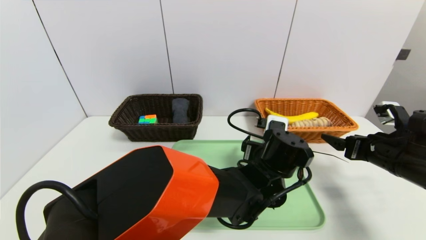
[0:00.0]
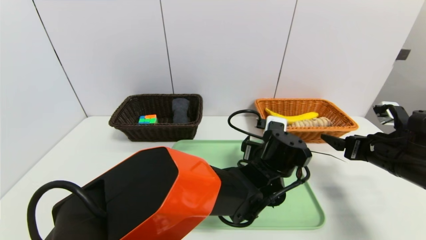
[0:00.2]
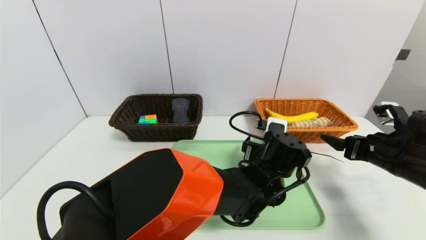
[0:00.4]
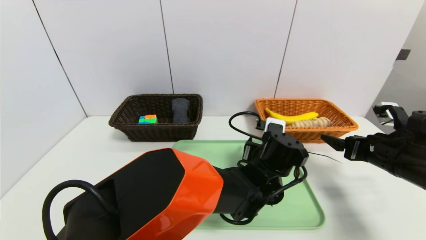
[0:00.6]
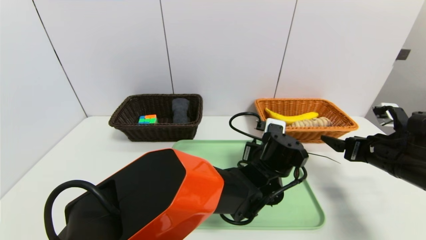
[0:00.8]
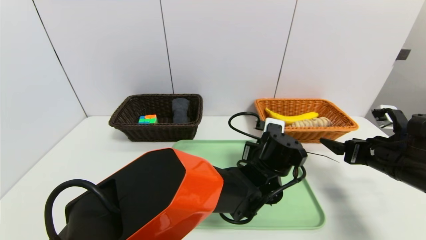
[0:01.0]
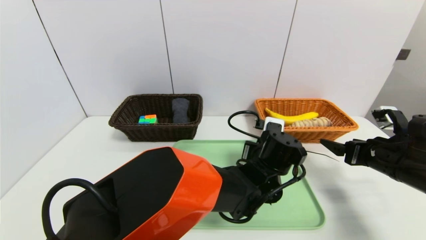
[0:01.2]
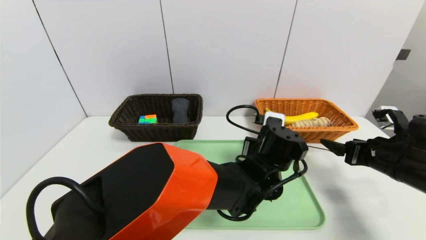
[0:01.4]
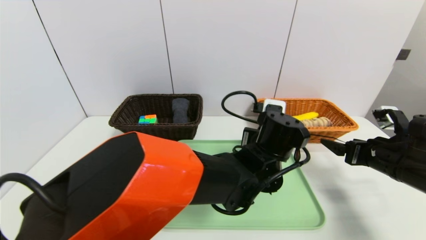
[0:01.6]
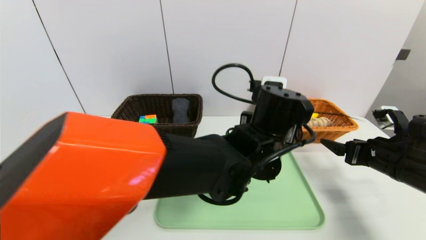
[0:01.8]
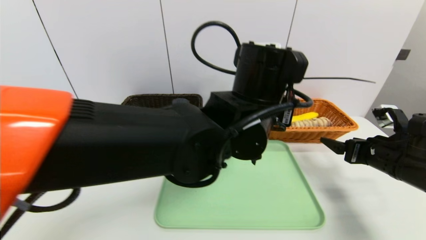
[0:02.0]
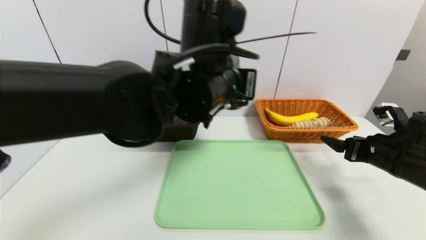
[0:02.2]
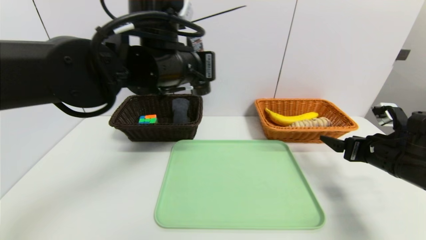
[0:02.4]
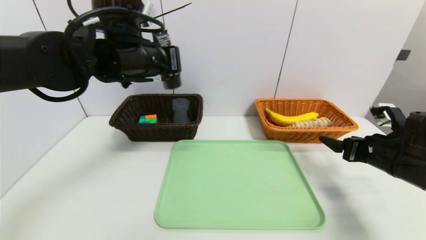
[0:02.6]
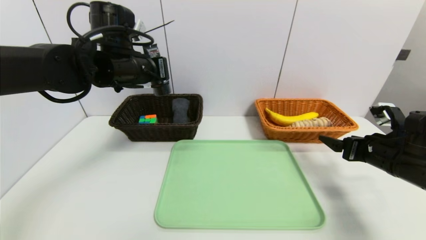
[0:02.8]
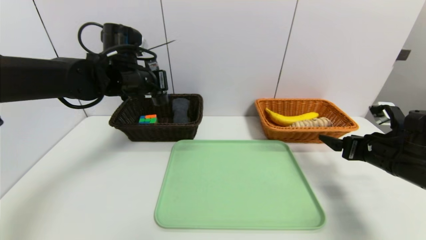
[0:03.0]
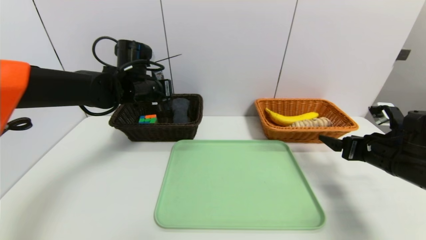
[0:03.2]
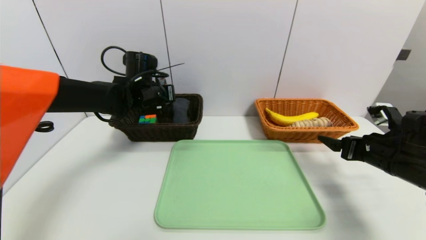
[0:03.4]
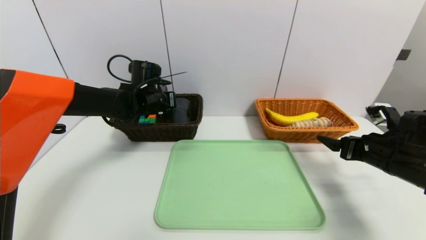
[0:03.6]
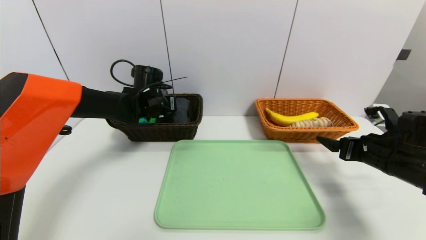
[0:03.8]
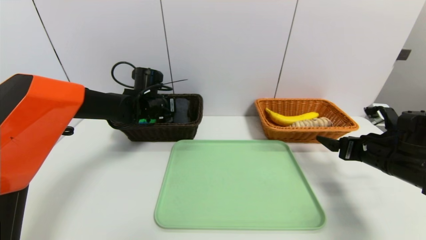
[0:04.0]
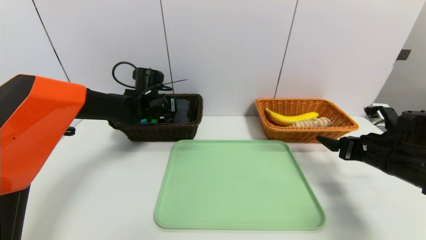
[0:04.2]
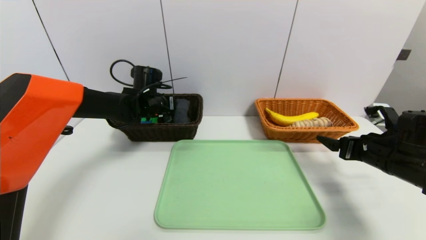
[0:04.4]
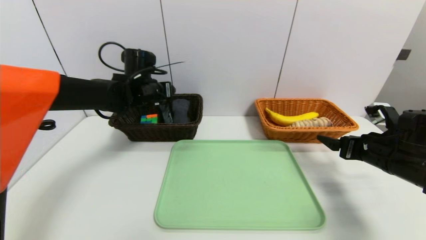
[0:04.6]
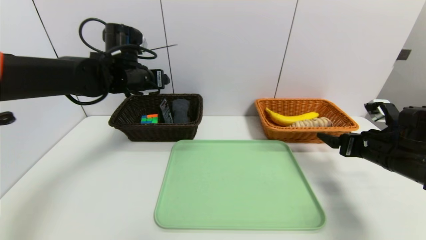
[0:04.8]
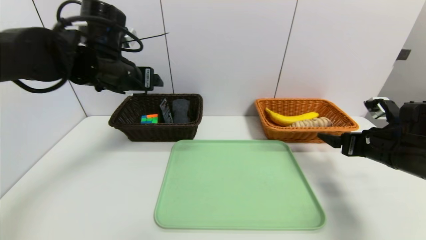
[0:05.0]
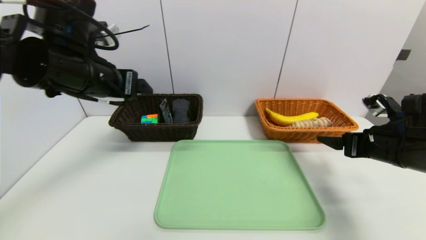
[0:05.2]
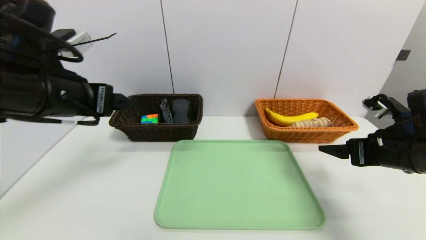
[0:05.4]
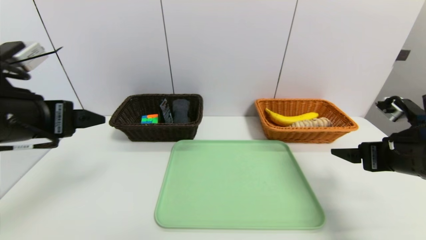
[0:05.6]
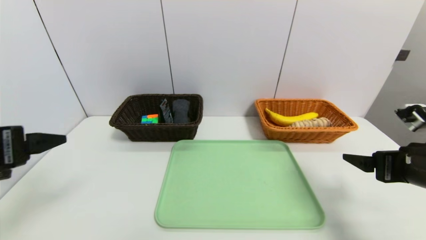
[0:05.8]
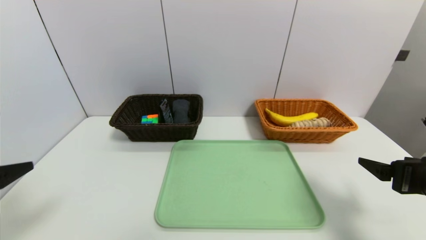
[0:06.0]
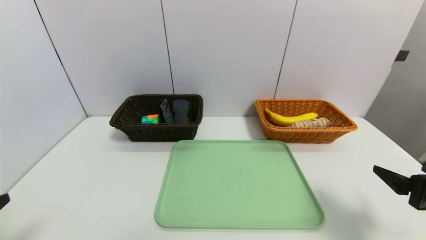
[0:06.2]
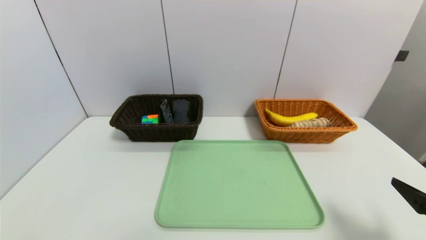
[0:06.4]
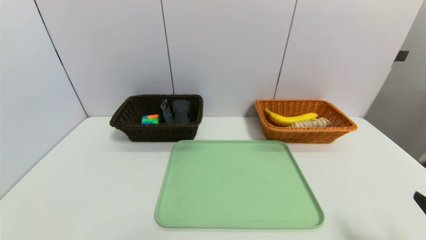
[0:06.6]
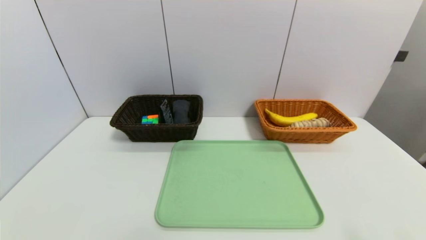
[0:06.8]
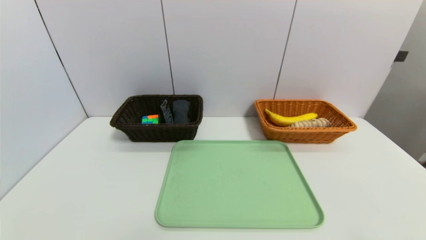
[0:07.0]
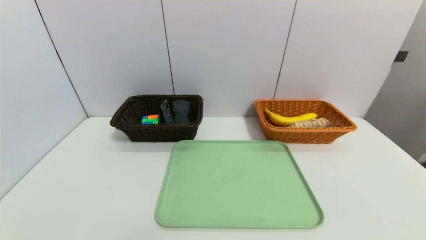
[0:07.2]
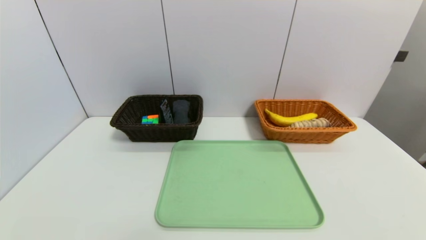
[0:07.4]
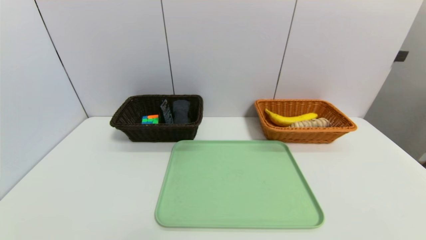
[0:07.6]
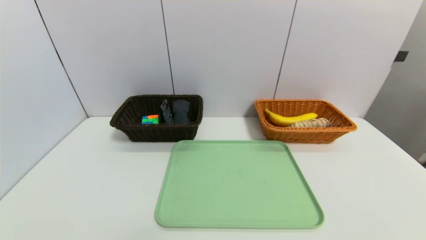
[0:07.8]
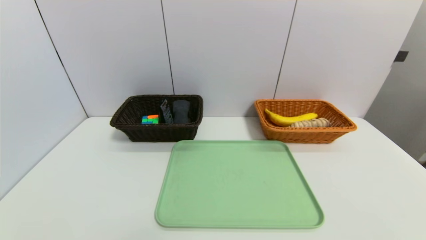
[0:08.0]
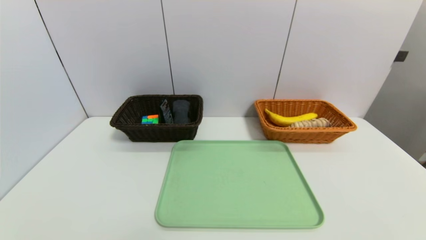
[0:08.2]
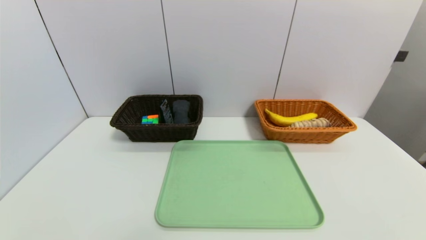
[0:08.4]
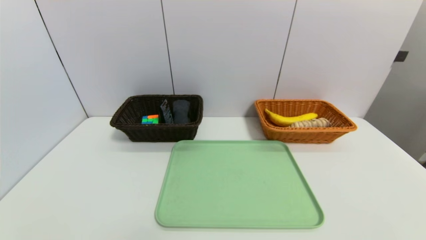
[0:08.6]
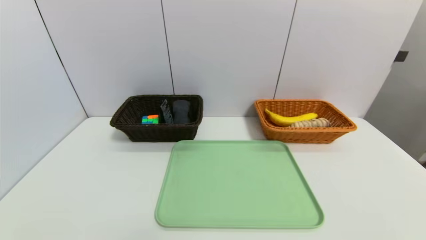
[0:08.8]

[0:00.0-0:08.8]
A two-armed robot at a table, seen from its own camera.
Task of the whole recording: place the food in the right basket with the right gripper, and place the non food items in the left basket with the left gripper.
Step, 0.0 to 4.6 s: Grasp the soft cleanser and put it in the left basket.
0.0 to 1.4 s: The left gripper closes its fingers.
1.4 to 3.0 s: The left gripper shifts about 30 cm to the left and upward.
3.0 to 4.4 s: The left gripper is displaced downward and forward by some 10 cm, and opens its fingers.
4.4 to 5.8 s: The right gripper heads backward and upward, covering about 10 cm. Meanwhile the left gripper goes some 30 cm backward.
5.8 to 7.4 s: The left gripper is displaced downward and backward by roughly 25 cm. Meanwhile the right gripper moves backward and downward, approximately 20 cm.

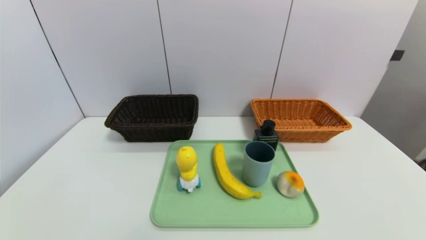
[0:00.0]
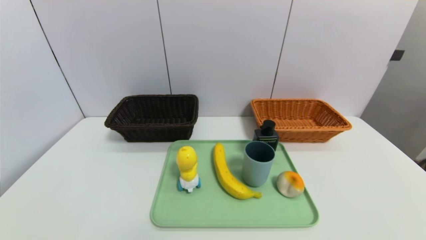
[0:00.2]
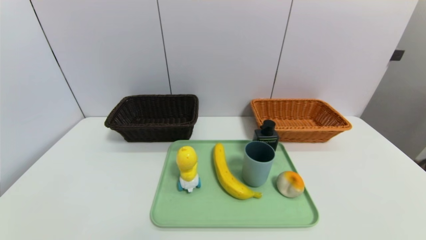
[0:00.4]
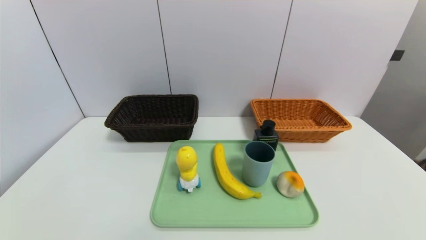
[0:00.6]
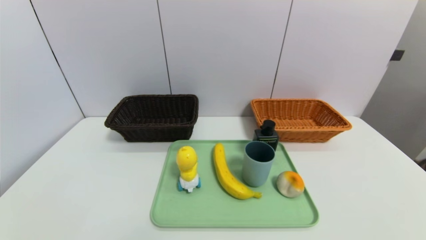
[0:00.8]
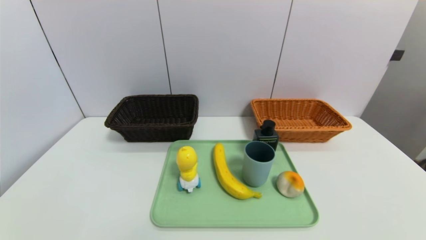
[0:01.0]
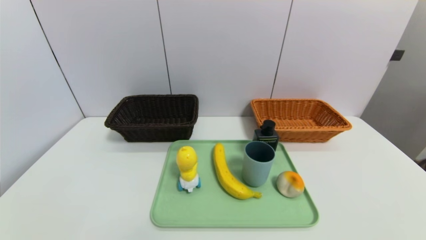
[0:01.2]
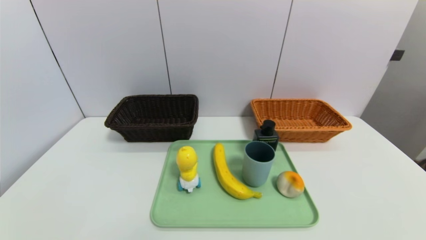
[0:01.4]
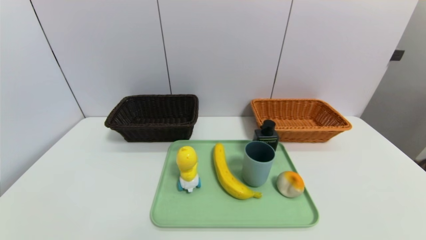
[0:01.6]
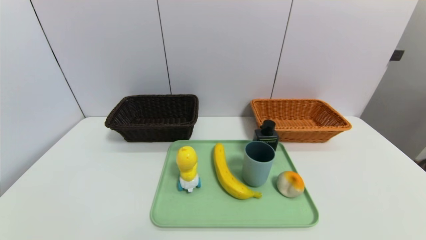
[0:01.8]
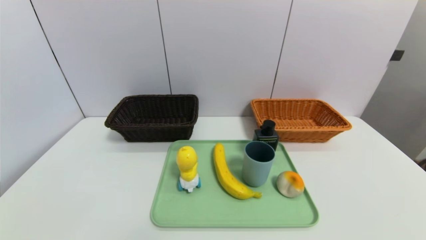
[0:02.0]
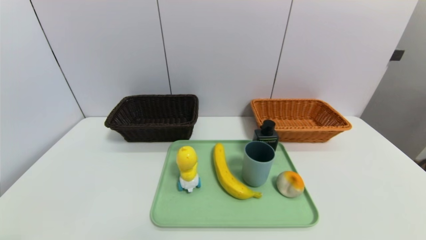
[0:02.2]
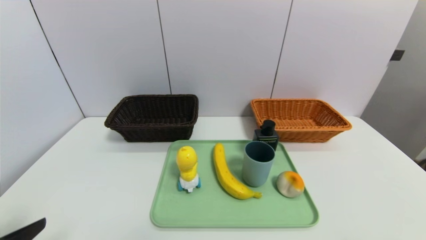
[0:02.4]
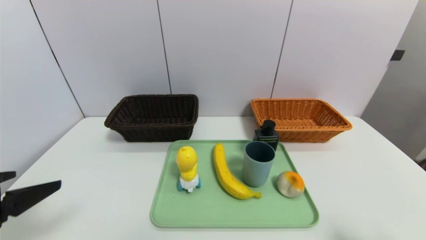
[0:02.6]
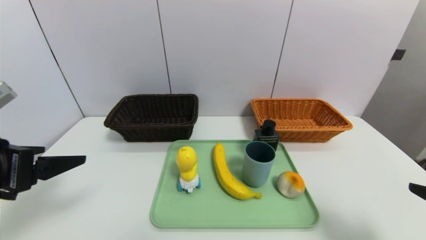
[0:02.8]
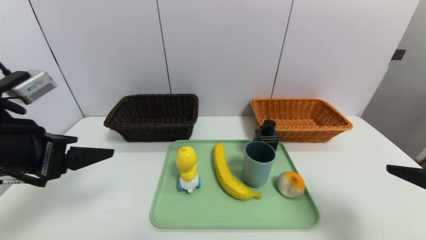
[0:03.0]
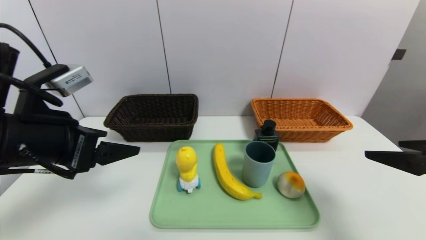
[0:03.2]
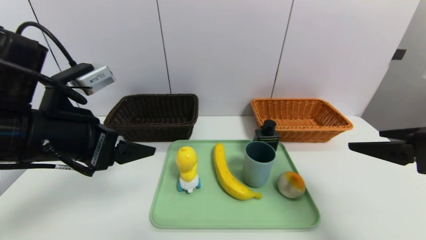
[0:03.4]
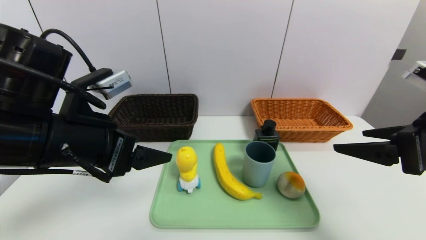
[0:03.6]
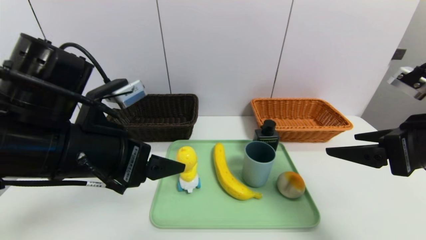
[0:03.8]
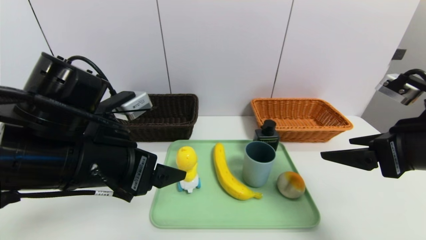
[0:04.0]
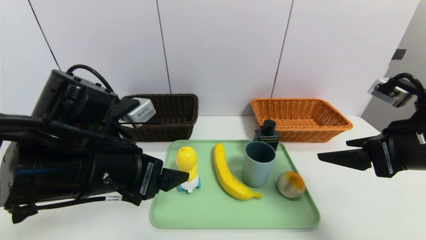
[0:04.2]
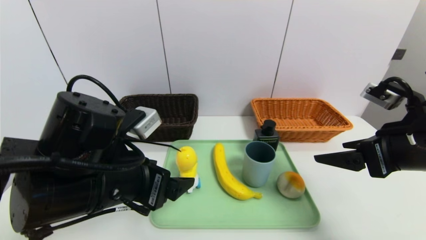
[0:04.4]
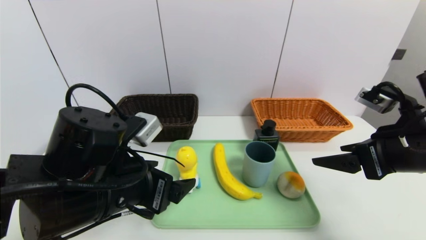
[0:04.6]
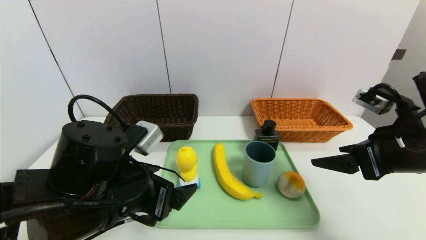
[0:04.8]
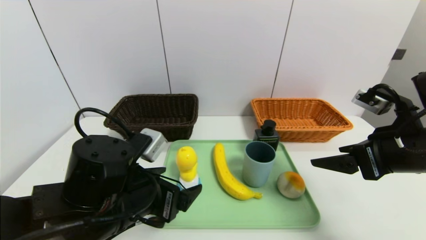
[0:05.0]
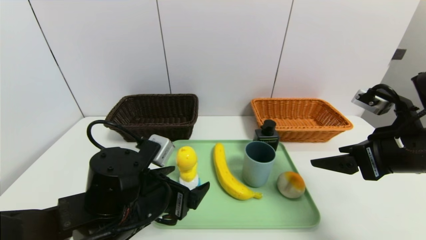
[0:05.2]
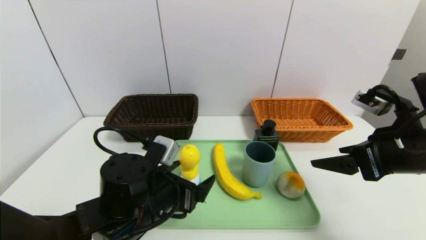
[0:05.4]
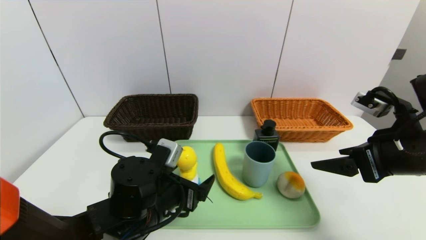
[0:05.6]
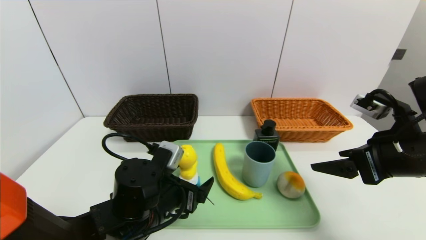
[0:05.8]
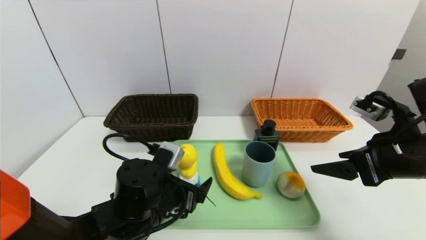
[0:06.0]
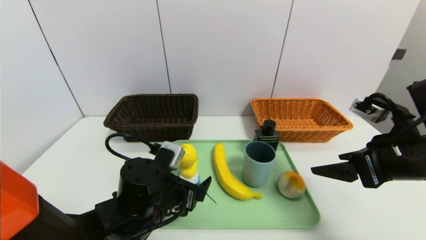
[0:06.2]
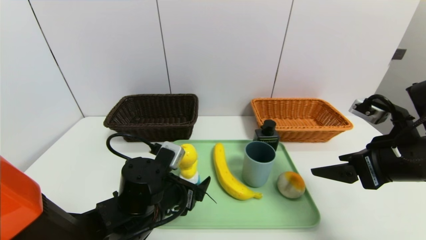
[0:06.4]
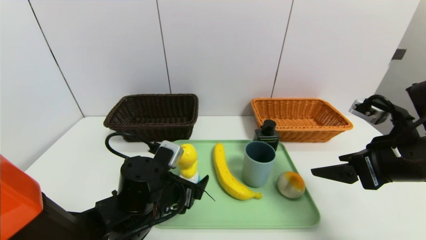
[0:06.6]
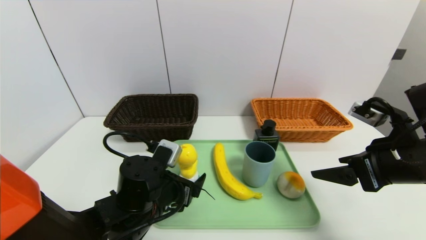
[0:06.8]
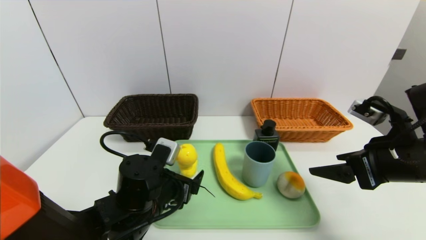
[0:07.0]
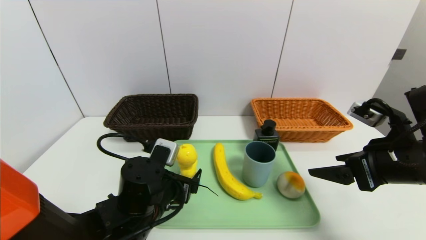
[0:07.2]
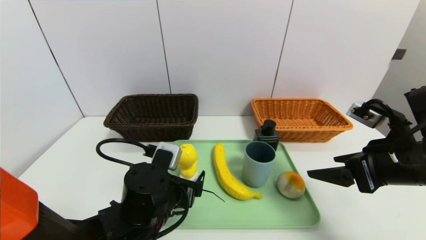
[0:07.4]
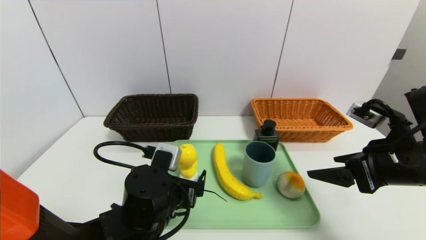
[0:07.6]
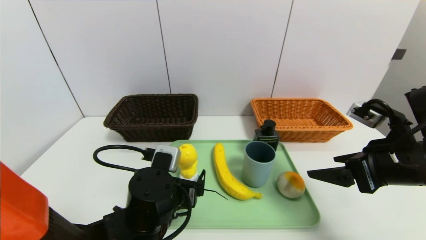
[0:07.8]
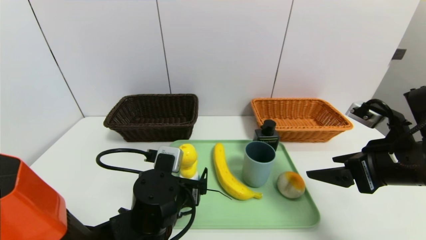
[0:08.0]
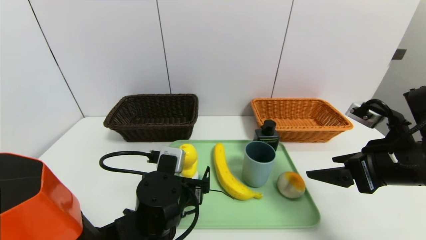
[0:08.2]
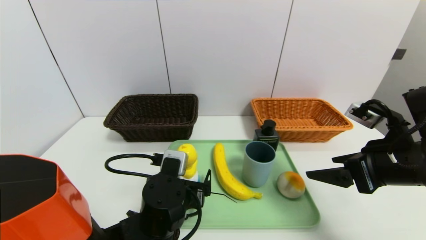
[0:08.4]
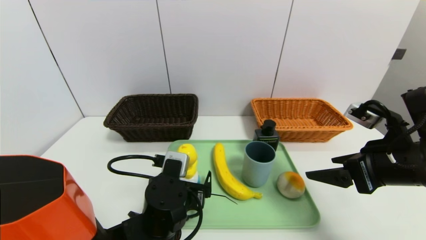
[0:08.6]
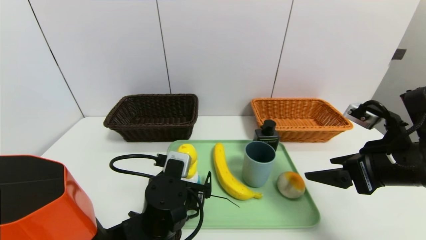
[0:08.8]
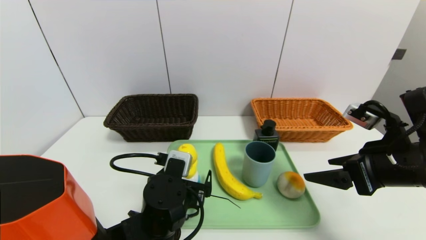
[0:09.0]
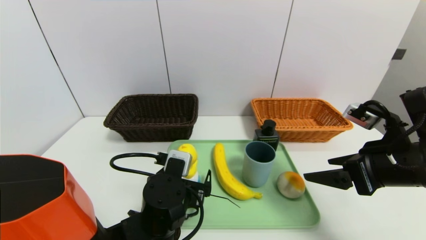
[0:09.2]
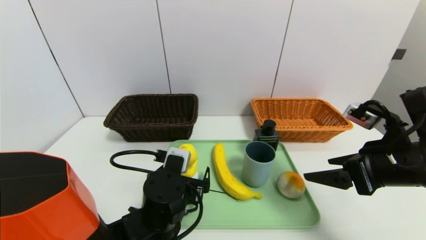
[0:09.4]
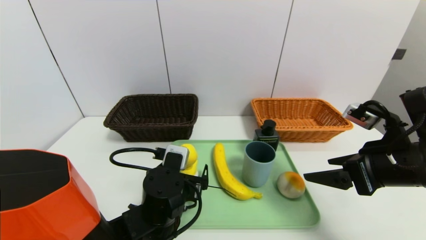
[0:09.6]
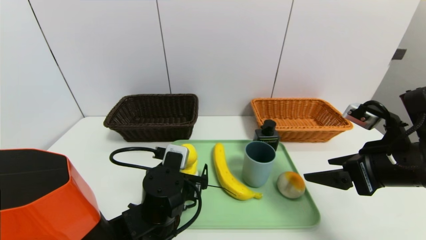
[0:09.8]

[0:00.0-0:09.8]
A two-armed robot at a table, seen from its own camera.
Task of the whole recording: place the food in the right basket with the right gripper, and place the non food items in the left basket with the left gripper.
0.0 to 1.4 s: Both grippers stay about where they are.
1.4 to 2.8 s: The two grippers go some 20 cm upward and forward.
2.8 to 4.2 s: The right gripper travels forward and to the left by about 10 cm; the left gripper goes roughly 15 cm to the right.
4.2 to 5.6 s: The left gripper heads downward, covering roughly 10 cm.
5.6 to 8.4 s: The grippers stay close to where they were, moving slightly.
8.4 to 9.8 s: The grippers stay close to where they were, moving slightly.
